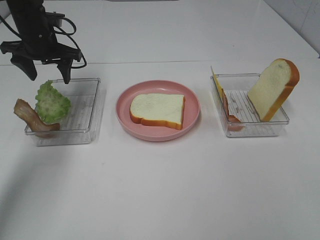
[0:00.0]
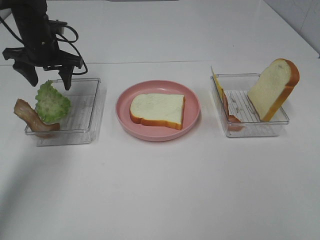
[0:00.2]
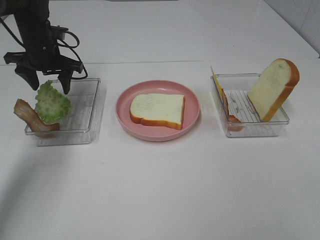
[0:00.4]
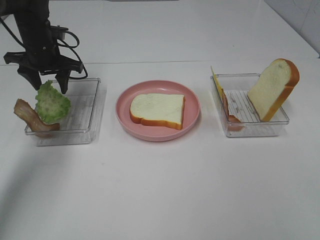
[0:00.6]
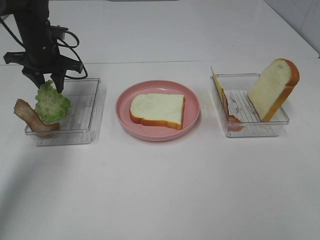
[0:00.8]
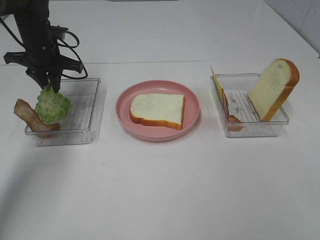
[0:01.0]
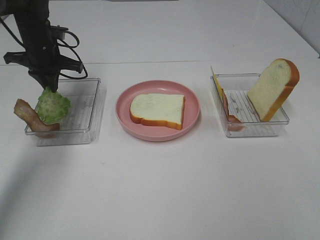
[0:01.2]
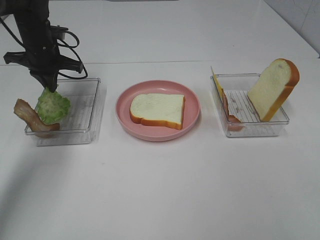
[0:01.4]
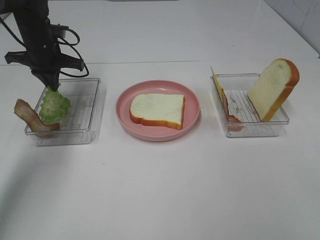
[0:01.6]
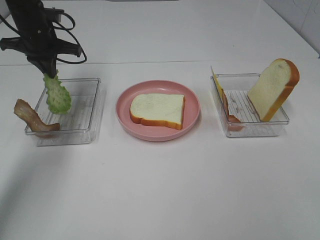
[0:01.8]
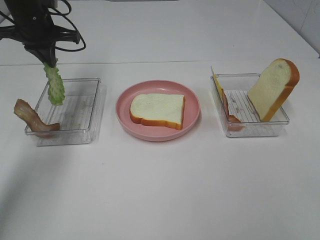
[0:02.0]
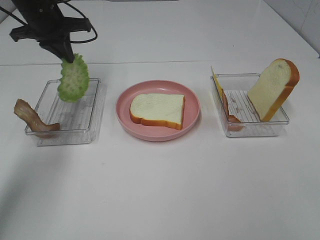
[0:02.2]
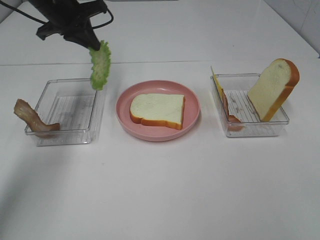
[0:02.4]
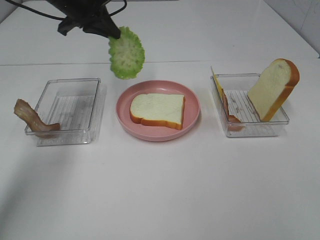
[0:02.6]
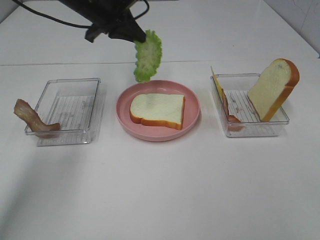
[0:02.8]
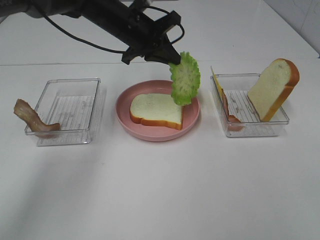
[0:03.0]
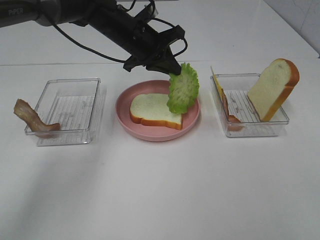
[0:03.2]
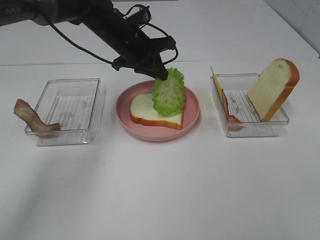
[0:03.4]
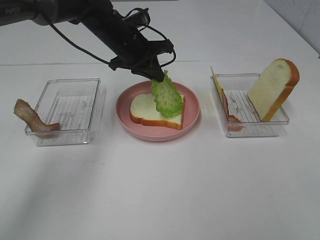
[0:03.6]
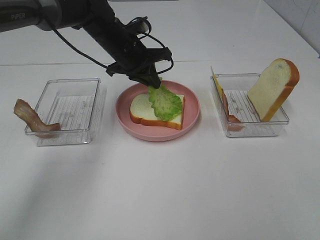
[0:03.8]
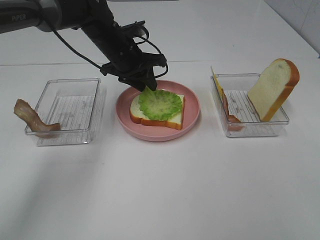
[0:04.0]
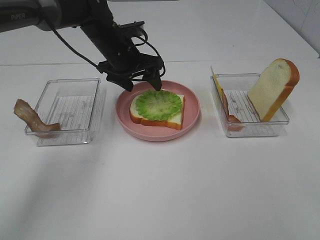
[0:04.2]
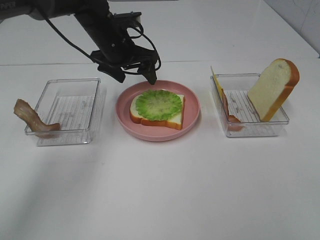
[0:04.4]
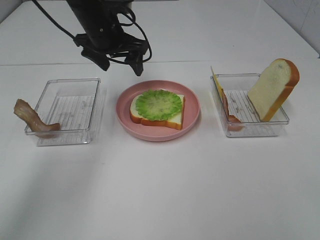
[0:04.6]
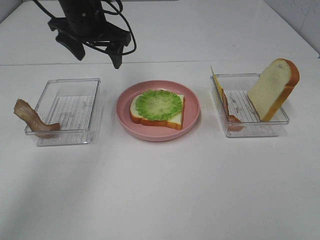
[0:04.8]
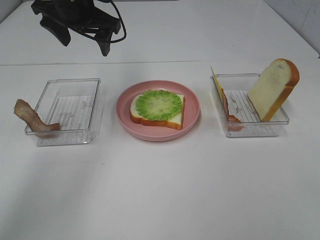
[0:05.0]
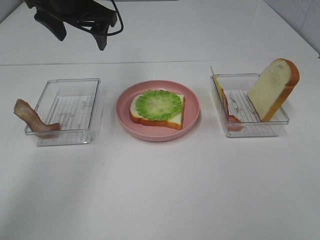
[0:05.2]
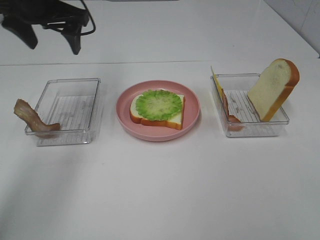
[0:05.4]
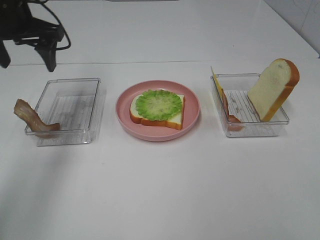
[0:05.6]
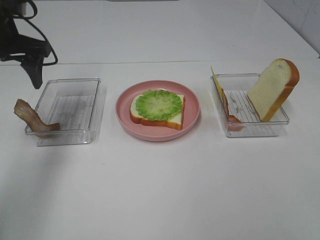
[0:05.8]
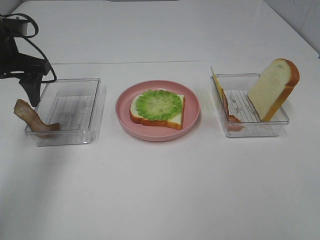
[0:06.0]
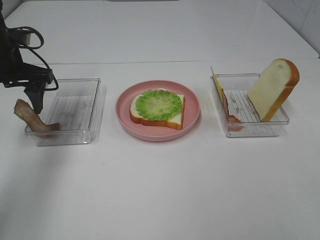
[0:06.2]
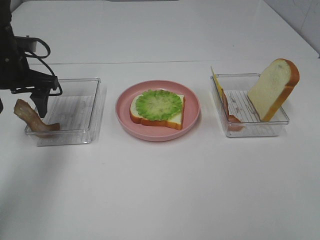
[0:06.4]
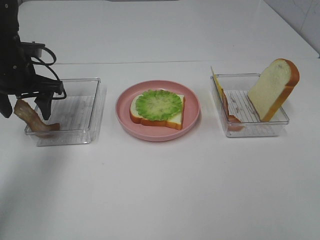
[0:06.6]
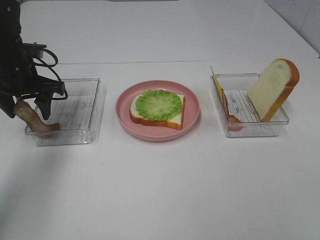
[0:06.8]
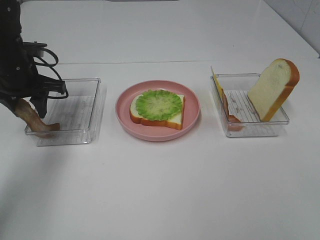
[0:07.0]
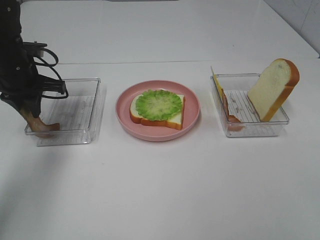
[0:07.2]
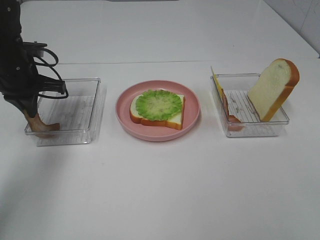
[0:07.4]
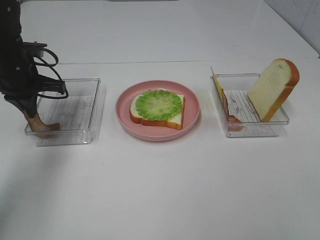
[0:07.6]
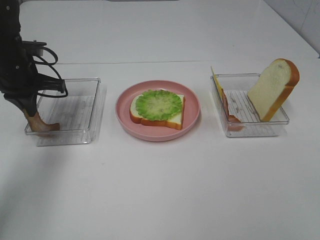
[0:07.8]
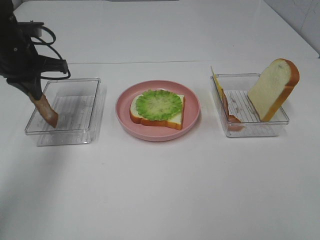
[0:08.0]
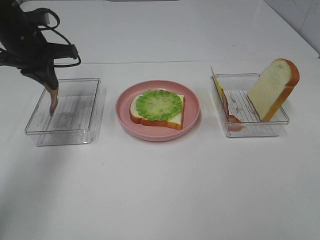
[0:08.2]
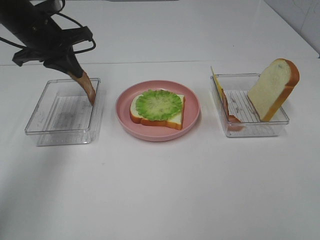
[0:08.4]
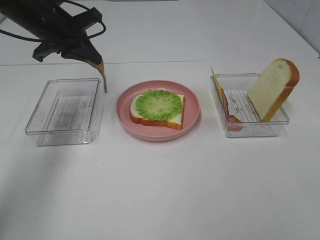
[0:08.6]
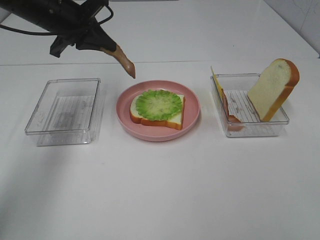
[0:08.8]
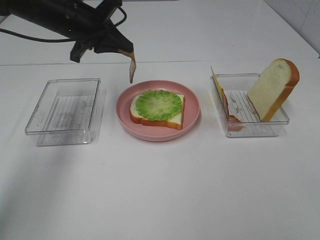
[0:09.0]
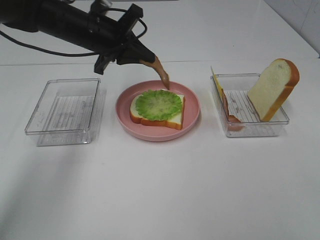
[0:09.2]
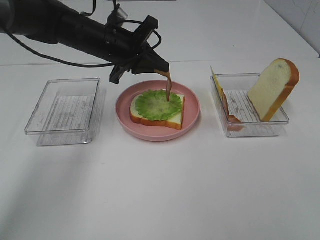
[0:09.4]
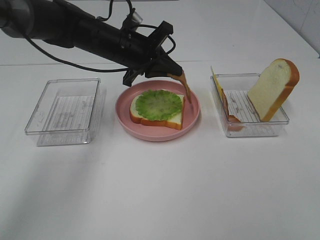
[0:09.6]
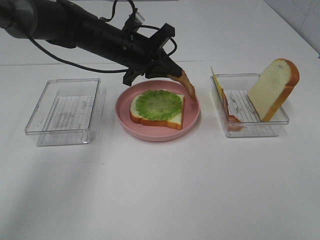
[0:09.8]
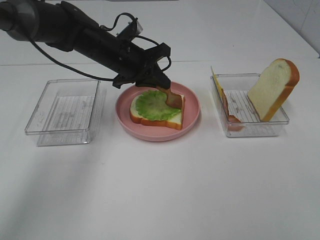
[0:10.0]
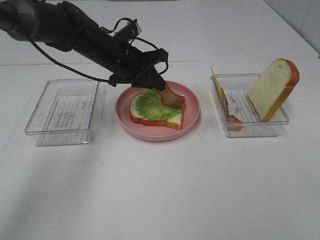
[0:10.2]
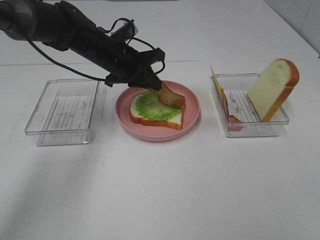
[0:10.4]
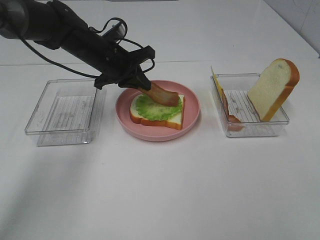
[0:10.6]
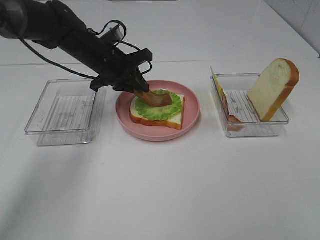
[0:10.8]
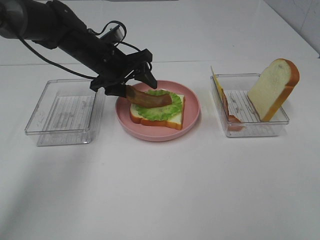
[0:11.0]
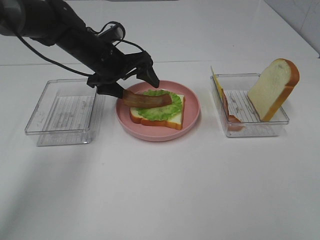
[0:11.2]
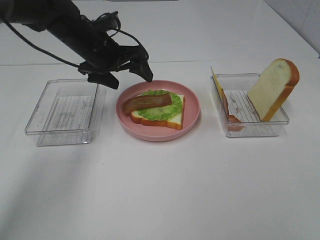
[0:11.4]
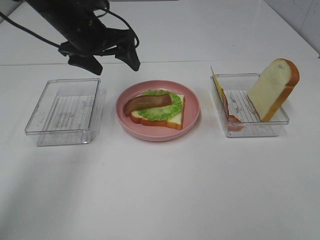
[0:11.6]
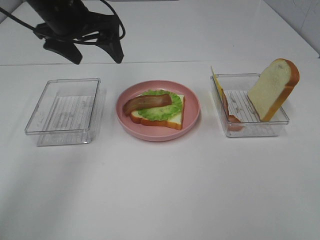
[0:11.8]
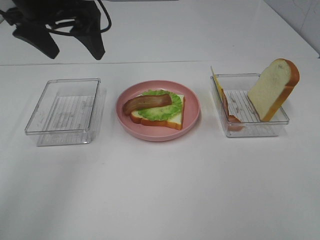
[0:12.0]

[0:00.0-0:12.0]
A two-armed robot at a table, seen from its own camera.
Task of the whole recording: Make sandwiches.
Step, 1.8 to 4.2 s: Left hand:place the lettuce slice on the bread slice.
Step, 4.4 to 7.8 s: Left hand:grab the bacon.
Step, 8.0 to 11.4 s: Left hand:place bacon on lettuce slice.
0.0 to 1.6 s: The left gripper closes up.
1.6 to 3.0 s: The left gripper travels to the right by roughly 20 cm.
3.0 to 4.4 s: The left gripper opens.
4.4 to 6.0 s: The left gripper goes roughly 20 cm to the left and backward.
6.0 to 7.6 s: The left gripper travels downward by about 5 cm, and closes.
7.6 to 9.0 s: The left gripper heads to the right and upward, covering approximately 10 cm.
9.0 to 10.4 s: The left gripper is displaced downward and to the right by about 10 cm.
10.4 to 12.0 s: The left gripper shifts approximately 20 cm upward, backward and to the left, and opens its fingers.

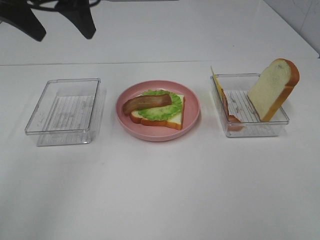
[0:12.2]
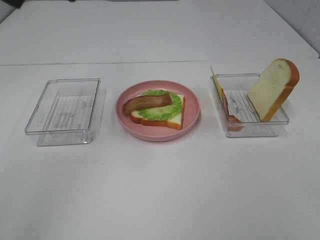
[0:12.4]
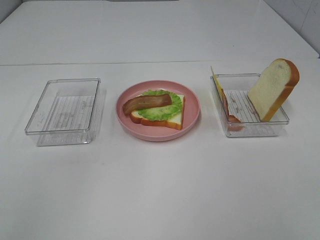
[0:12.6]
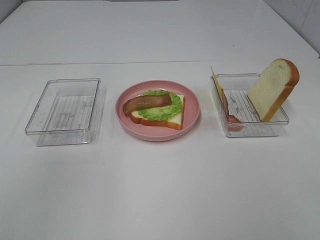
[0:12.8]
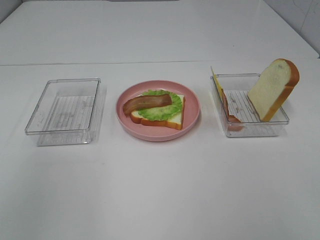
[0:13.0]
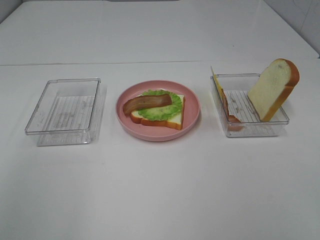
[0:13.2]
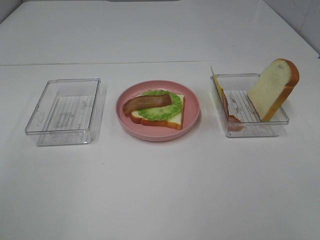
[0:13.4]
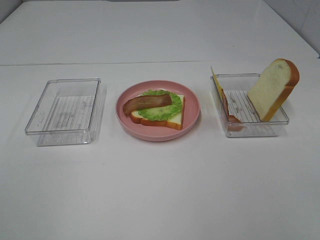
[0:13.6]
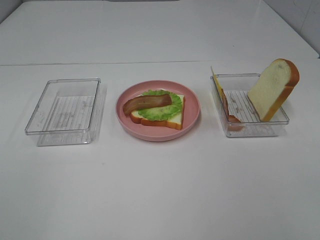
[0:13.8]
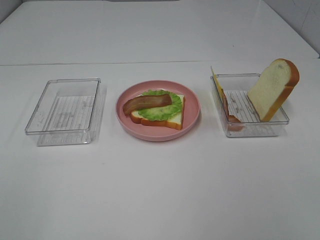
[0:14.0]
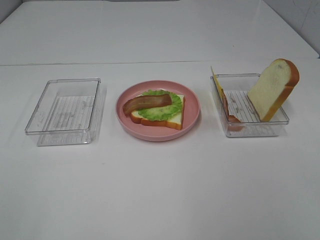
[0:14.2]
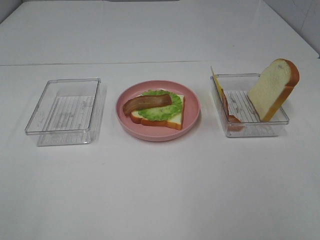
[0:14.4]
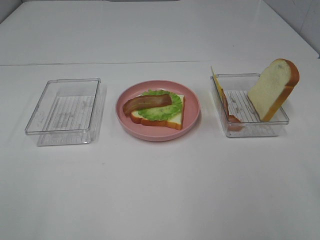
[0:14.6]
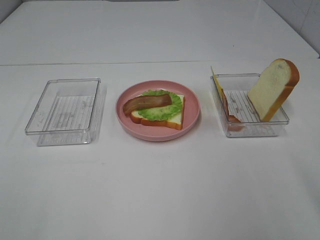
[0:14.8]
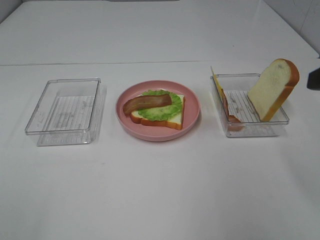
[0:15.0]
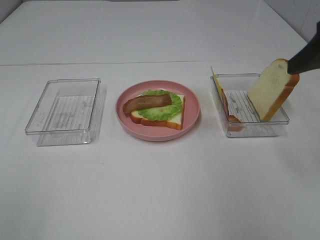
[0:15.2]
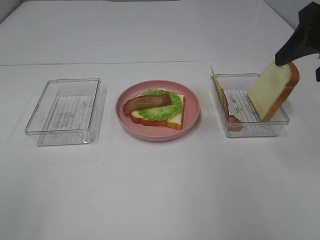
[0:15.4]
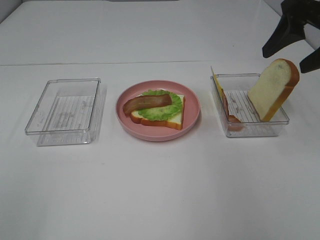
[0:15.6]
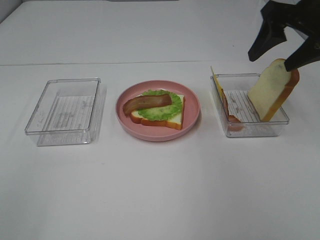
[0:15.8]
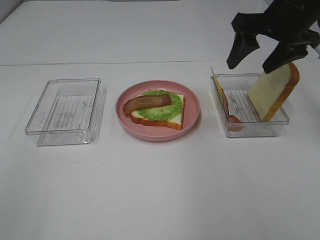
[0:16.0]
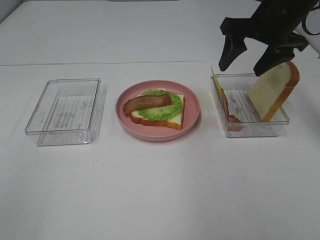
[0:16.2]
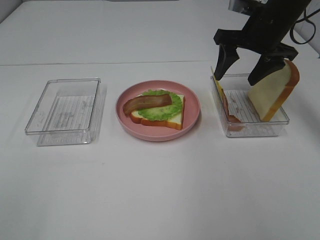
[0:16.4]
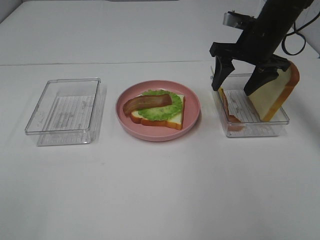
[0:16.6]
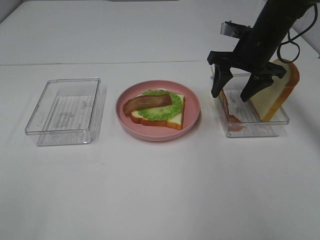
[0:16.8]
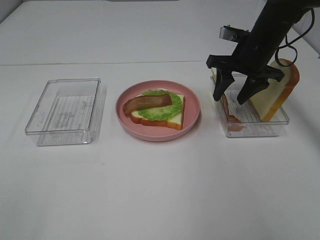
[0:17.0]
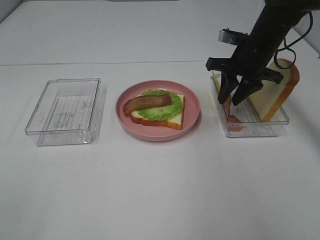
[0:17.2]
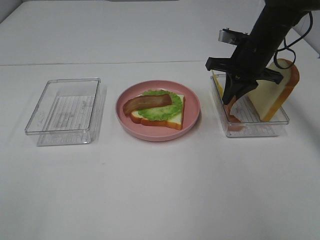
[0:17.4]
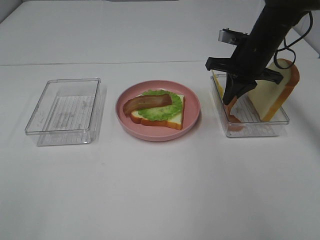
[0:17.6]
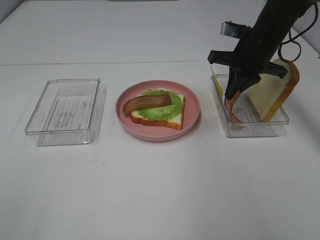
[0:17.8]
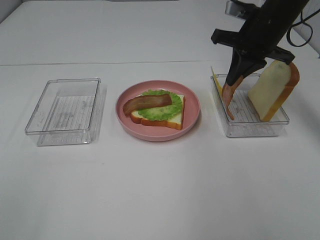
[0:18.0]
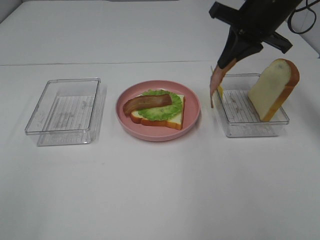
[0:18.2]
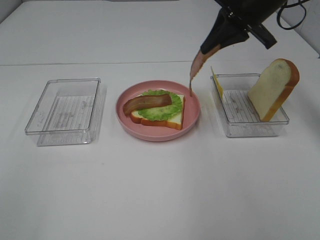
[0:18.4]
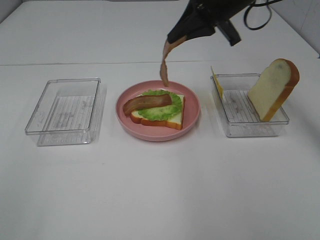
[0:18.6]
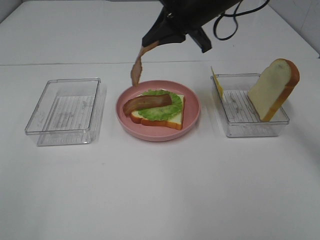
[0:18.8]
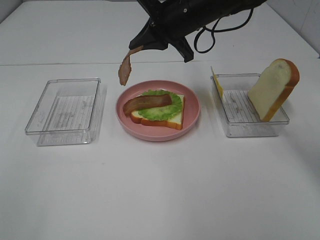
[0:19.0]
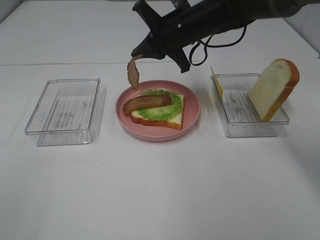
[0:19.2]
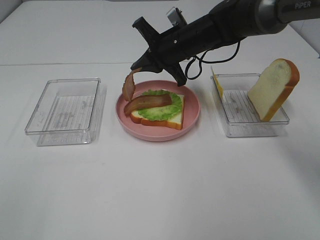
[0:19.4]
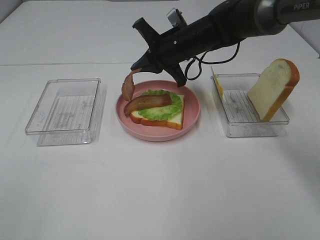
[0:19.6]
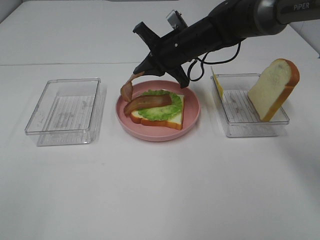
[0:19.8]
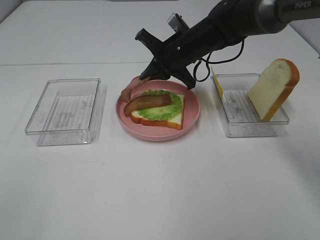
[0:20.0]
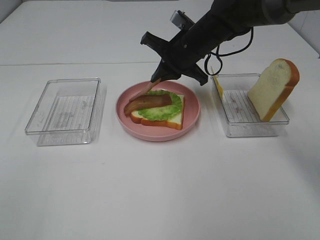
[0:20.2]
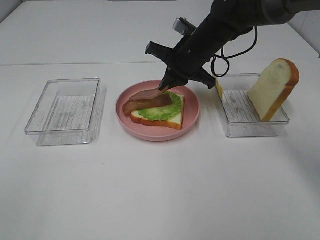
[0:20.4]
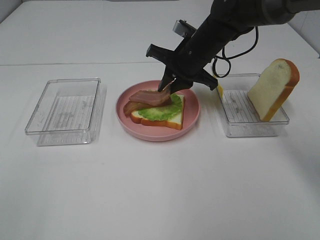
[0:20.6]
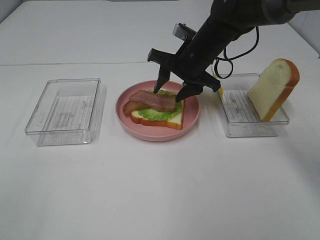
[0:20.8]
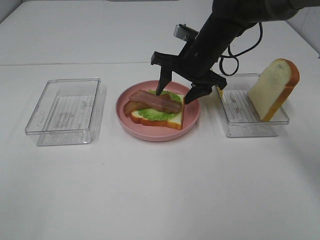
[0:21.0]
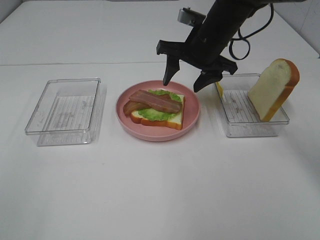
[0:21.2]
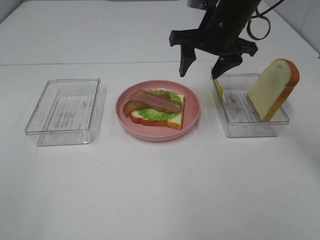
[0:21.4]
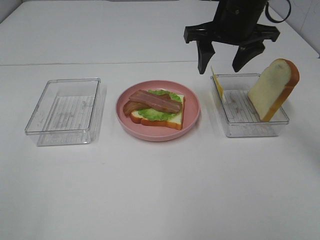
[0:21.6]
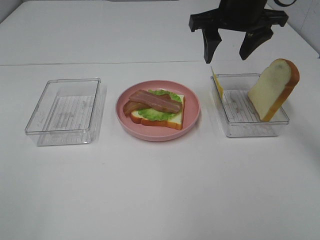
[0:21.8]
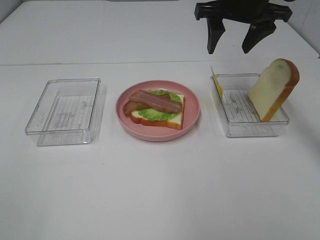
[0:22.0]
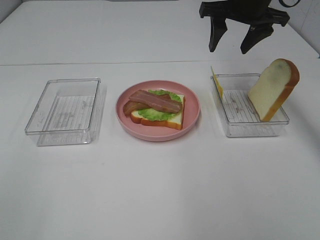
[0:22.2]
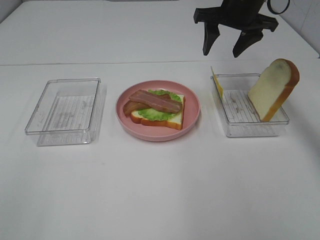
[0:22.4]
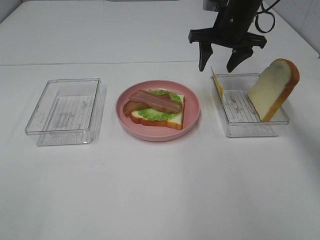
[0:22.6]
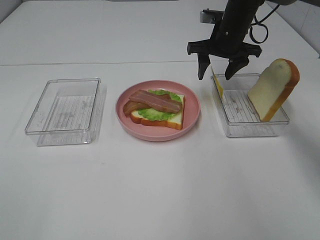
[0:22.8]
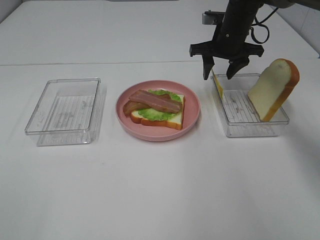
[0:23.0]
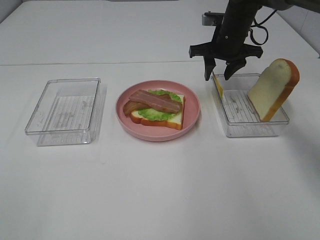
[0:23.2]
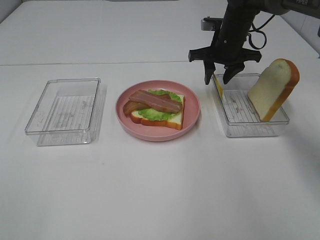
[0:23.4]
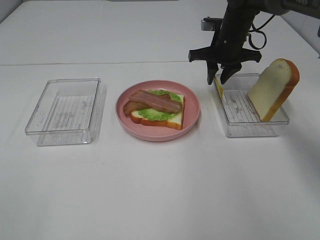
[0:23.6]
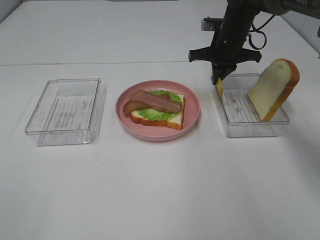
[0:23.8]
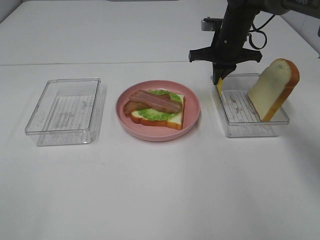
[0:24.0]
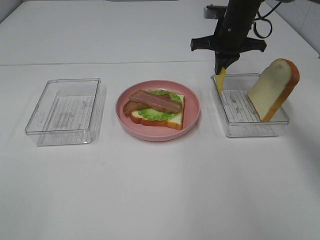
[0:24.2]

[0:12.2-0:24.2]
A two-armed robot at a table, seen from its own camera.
Task of the whole recording: Make sandwiches.
Step, 12.2 to 17.4 s: Right hand:grab the bacon.
Step, 17.6 to 21.2 s: Right hand:place bacon on bacon.
Step, 21.4 to 24.2 s: Right hand:grab the cheese slice.
12.2 to 13.8 s: The left gripper travels backward by some 35 cm.
13.8 to 15.2 s: The right gripper is displaced forward by roughly 25 cm.
15.2 to 16.6 s: The right gripper shifts some 20 cm forward and downward.
16.6 to 18.2 s: The right gripper goes about 5 cm upward, and closes its fingers.
18.2 to 19.8 s: The right gripper moves to the left and downward, about 15 cm.
19.8 to 21.2 s: The right gripper shifts by some 5 cm, and opens.
21.2 to 22.6 s: The right gripper travels forward and to the right by approximately 10 cm.
22.6 to 24.2 s: The right gripper closes its fingers.
